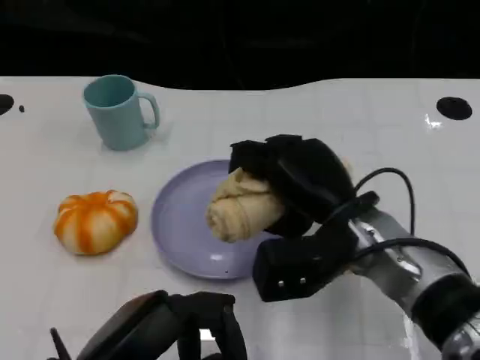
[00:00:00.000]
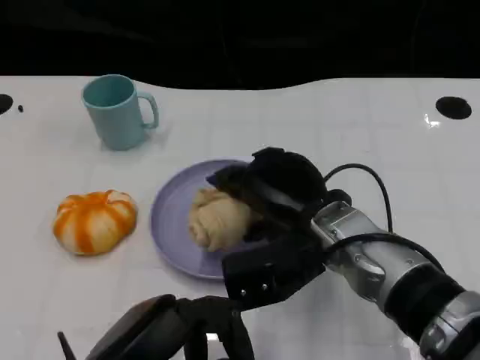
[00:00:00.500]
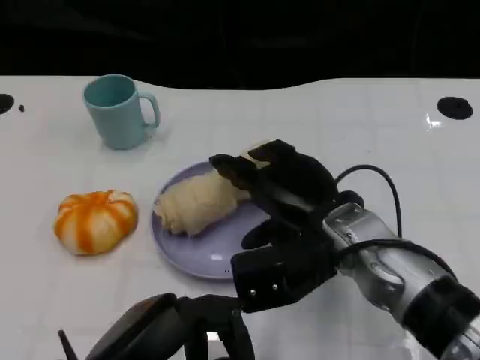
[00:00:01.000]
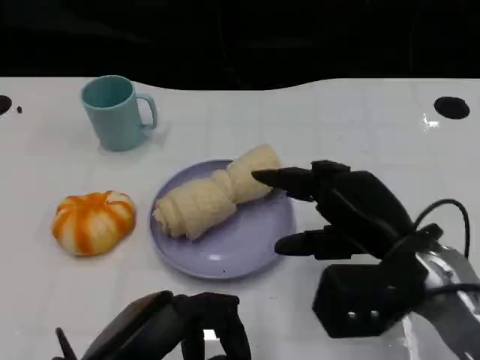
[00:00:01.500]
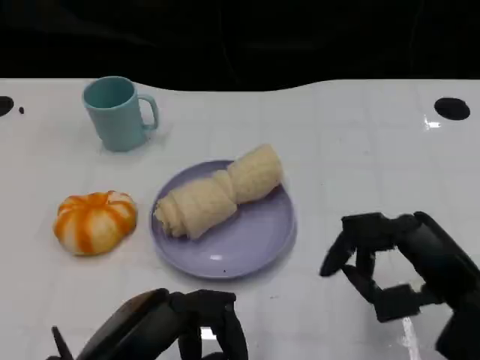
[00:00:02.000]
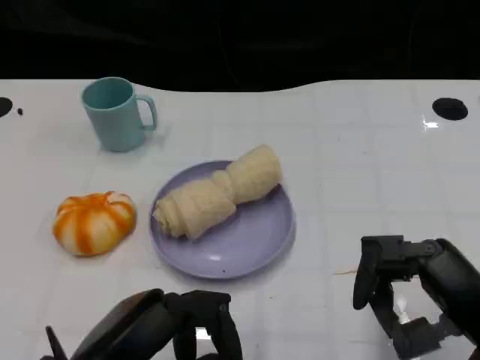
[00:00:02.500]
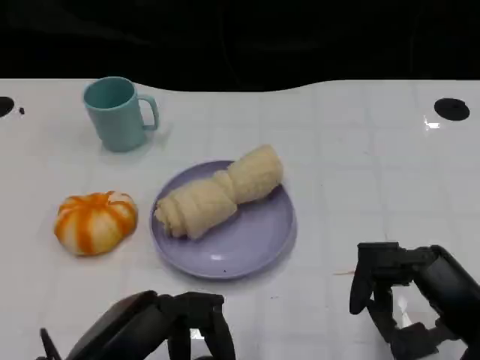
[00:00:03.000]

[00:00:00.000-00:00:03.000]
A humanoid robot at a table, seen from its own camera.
Task of the whole recording: Grasp the towel on the left side of the plate with the left hand and place it into the plate.
00:00:00.000 to 00:00:01.500: The right hand shifts about 5 cm to the right.
00:00:01.500 to 00:00:03.000: The right hand shifts some 10 cm backward and to the right.
